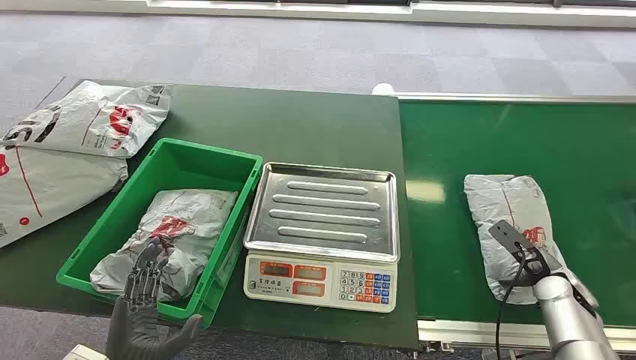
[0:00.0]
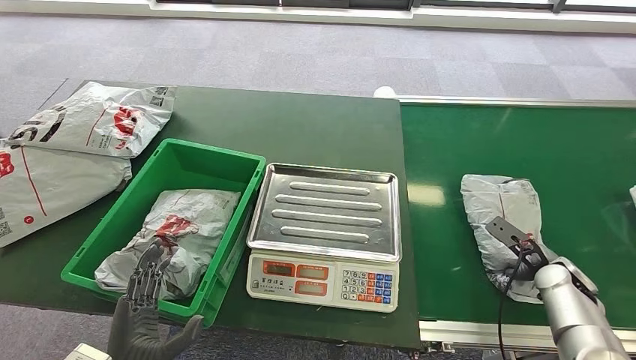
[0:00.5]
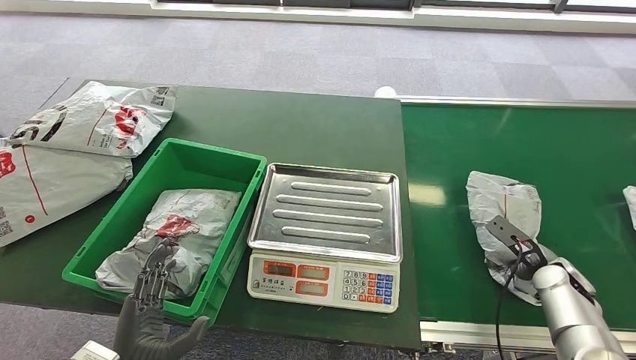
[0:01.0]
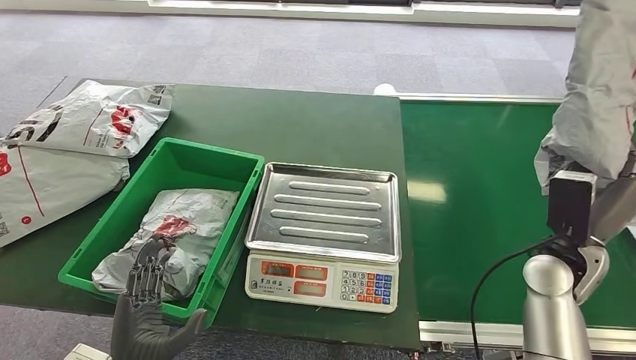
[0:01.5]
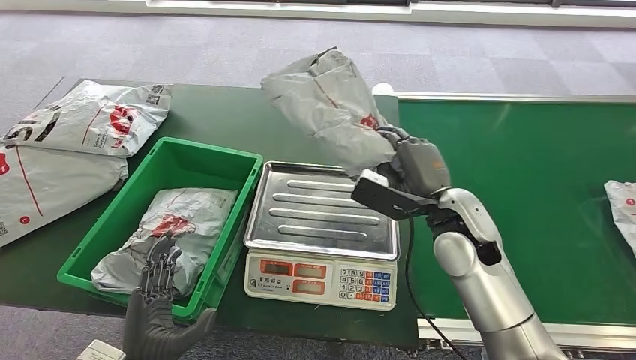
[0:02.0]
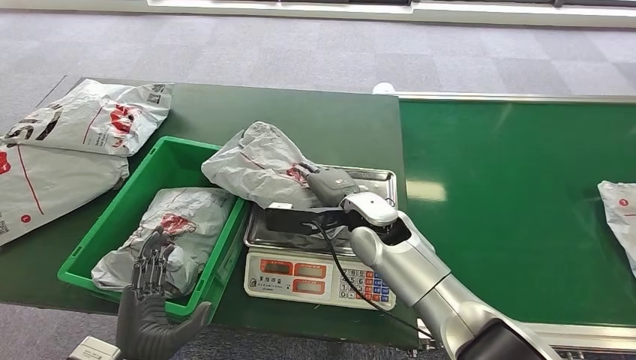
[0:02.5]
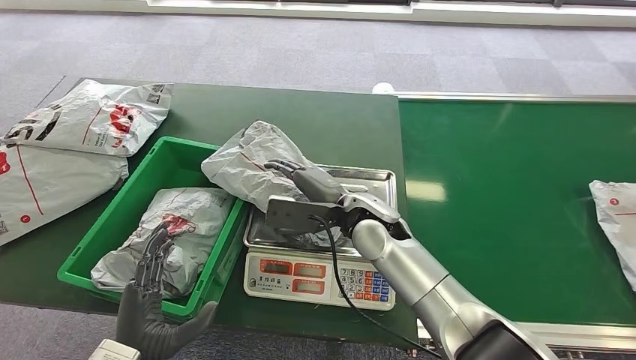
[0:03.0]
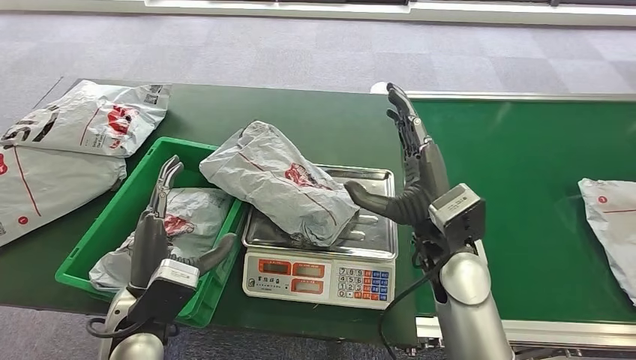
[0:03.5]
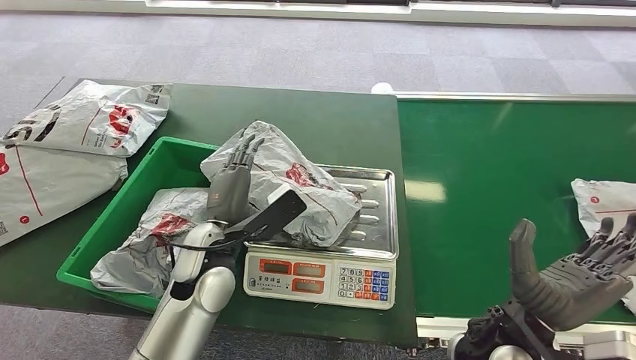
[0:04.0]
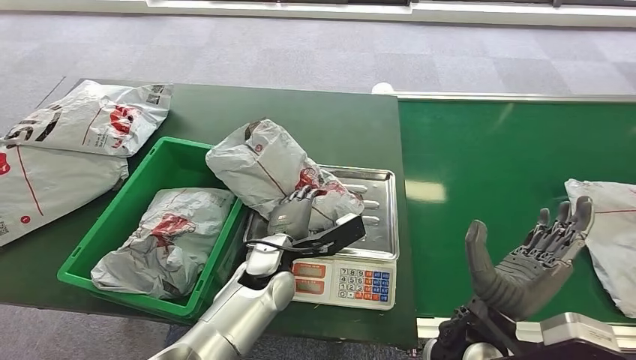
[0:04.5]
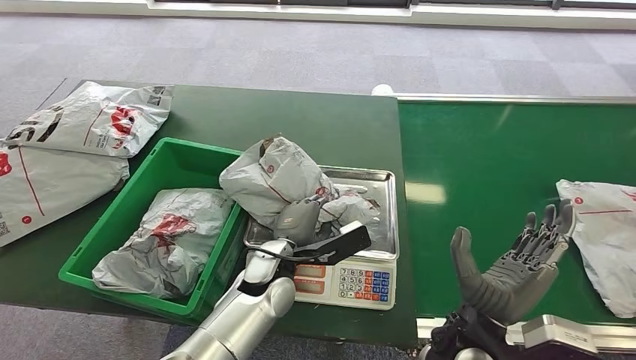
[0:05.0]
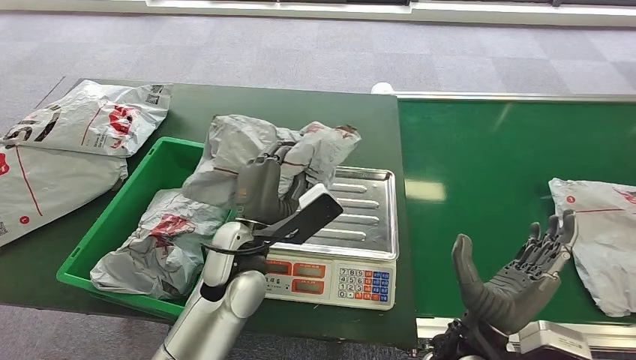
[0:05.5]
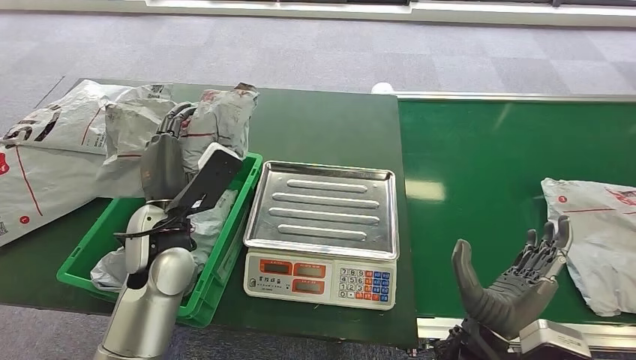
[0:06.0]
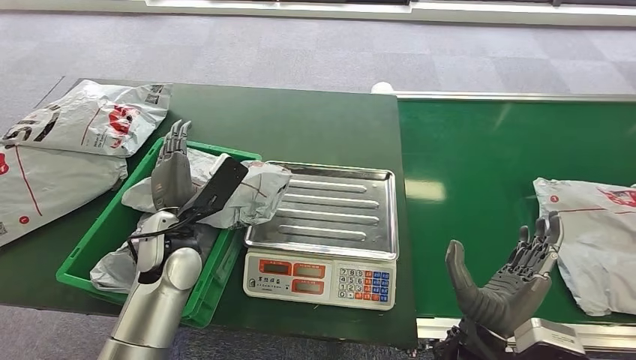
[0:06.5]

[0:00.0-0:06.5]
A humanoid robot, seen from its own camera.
Step, 0:00.0 to 0:01.5: Pick up the package from the conveyor belt.
Step, 0:02.0 to 0:03.0: Place the package onto the inbound machine.
Step, 0:04.0 to 0:05.5: Pick up the package from the inbound machine.
Step, 0:06.0 to 0:06.5: Place the package into the parcel locker.
